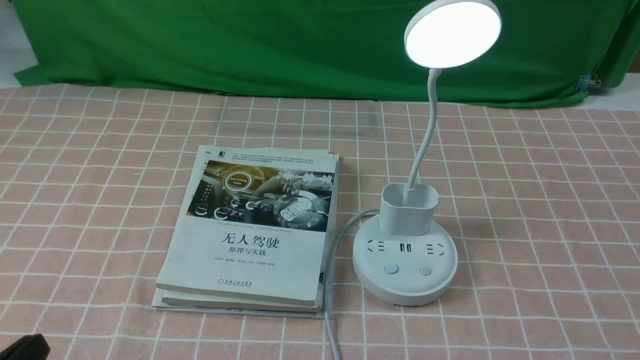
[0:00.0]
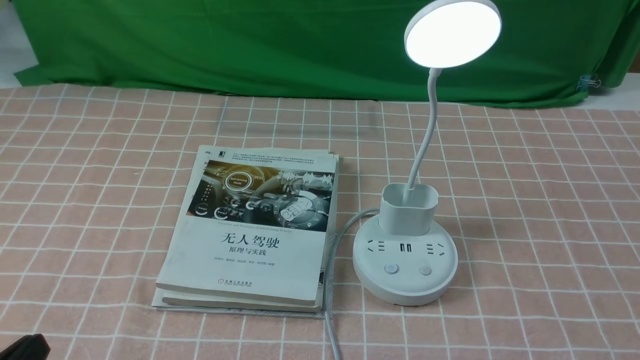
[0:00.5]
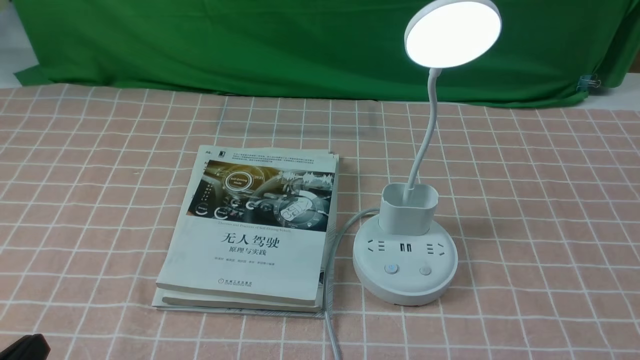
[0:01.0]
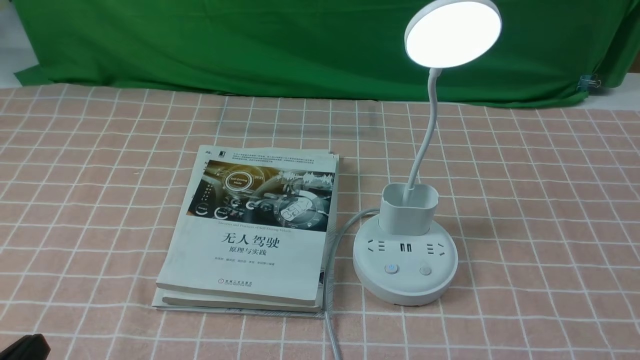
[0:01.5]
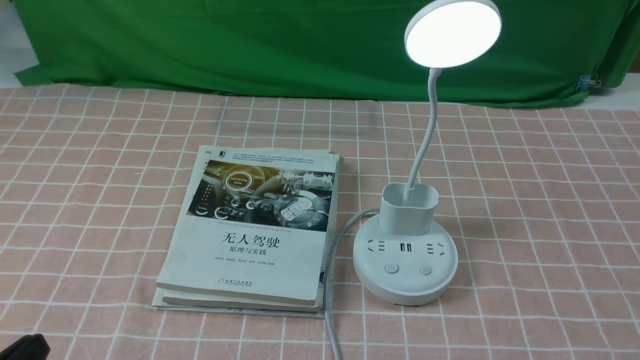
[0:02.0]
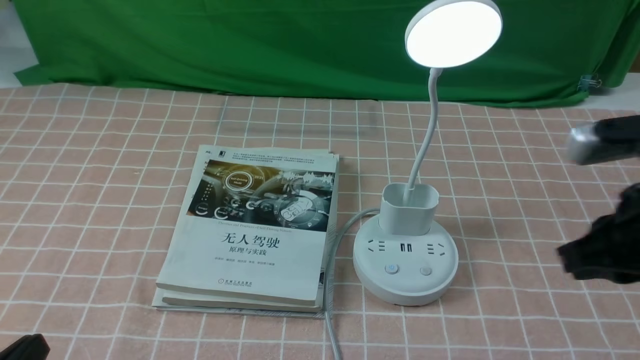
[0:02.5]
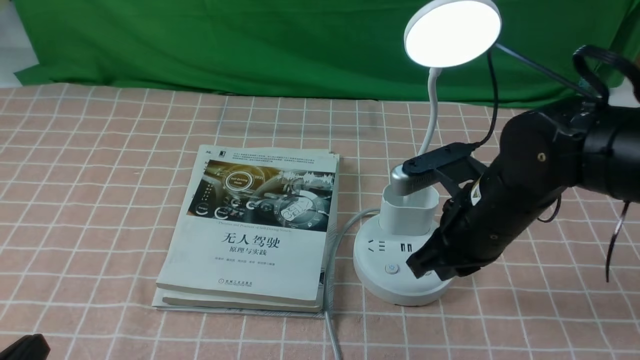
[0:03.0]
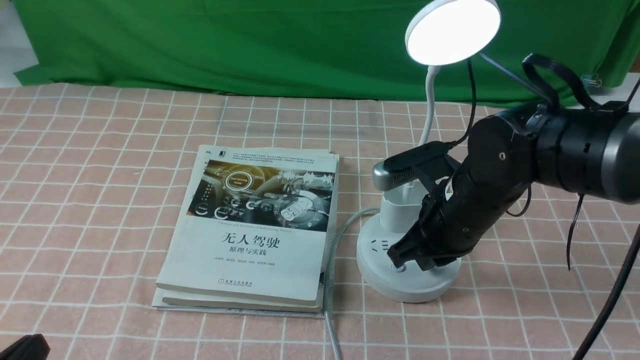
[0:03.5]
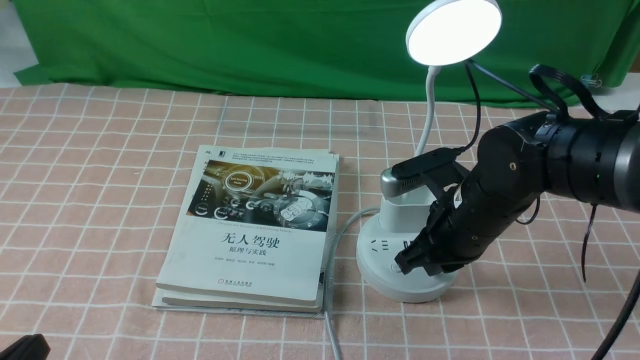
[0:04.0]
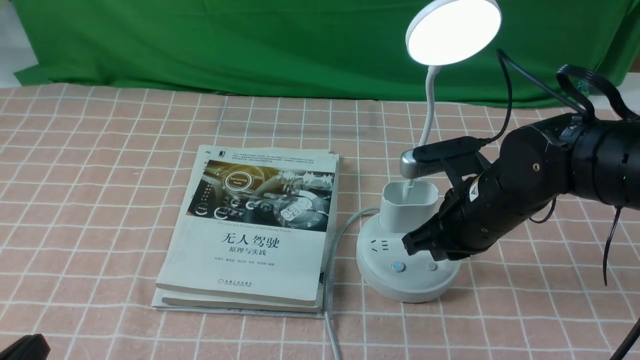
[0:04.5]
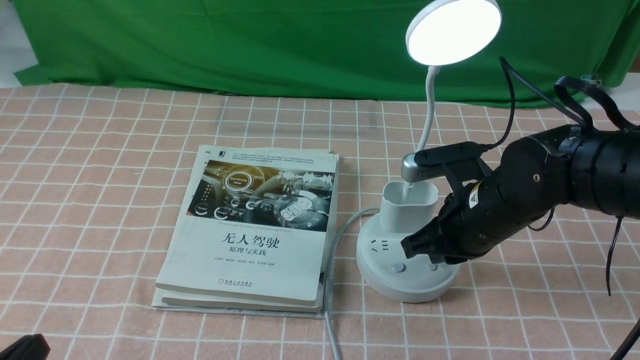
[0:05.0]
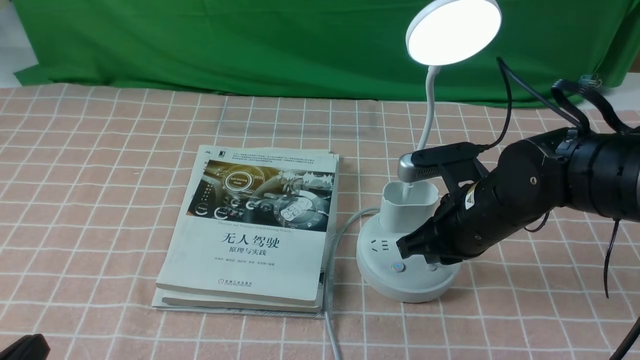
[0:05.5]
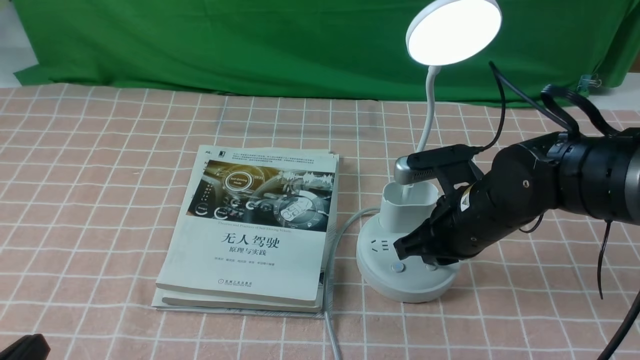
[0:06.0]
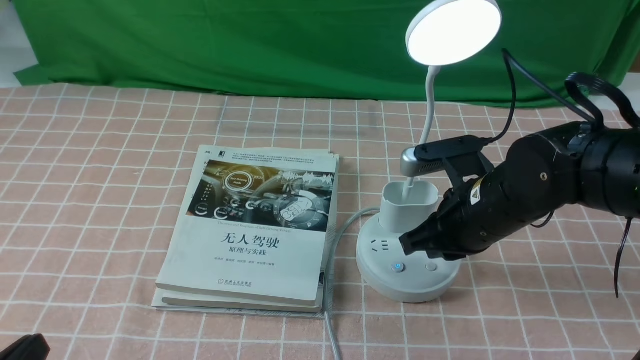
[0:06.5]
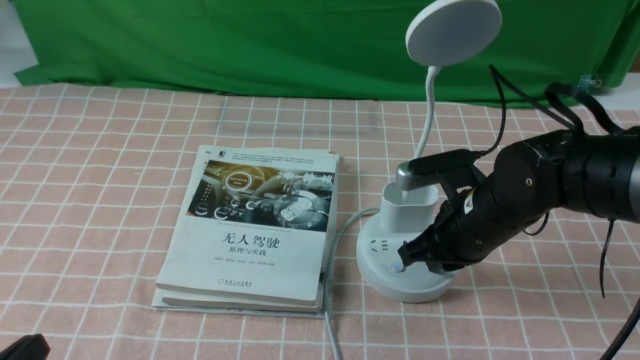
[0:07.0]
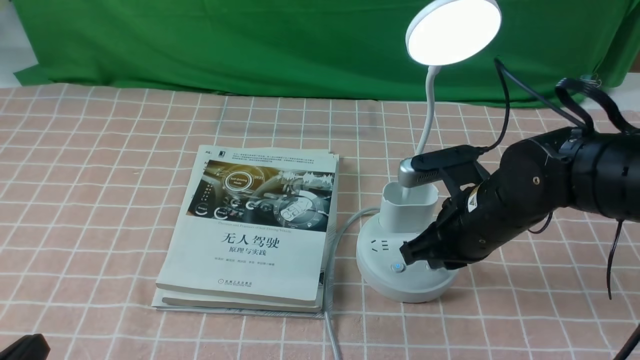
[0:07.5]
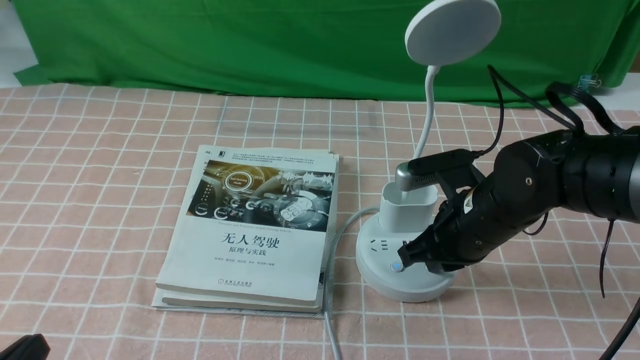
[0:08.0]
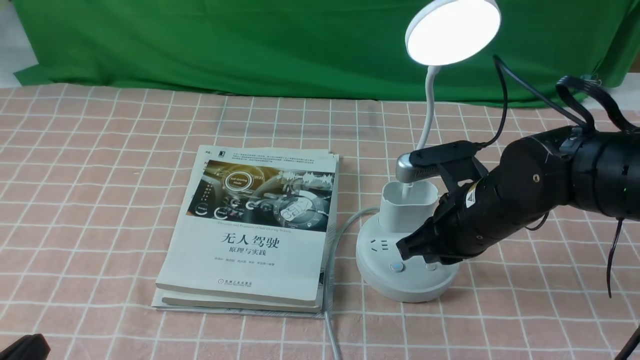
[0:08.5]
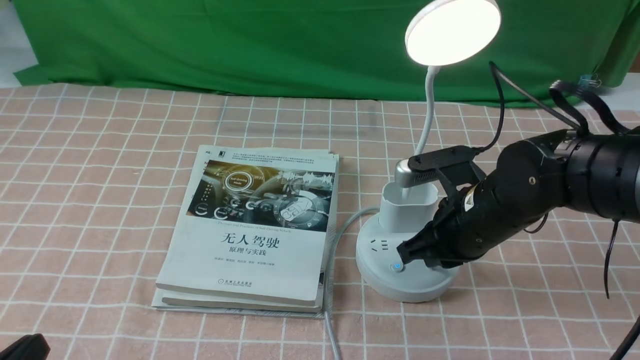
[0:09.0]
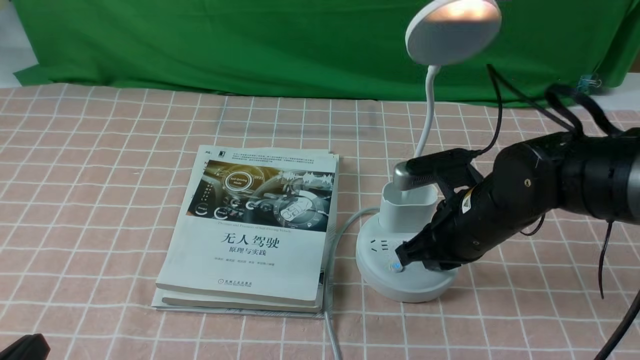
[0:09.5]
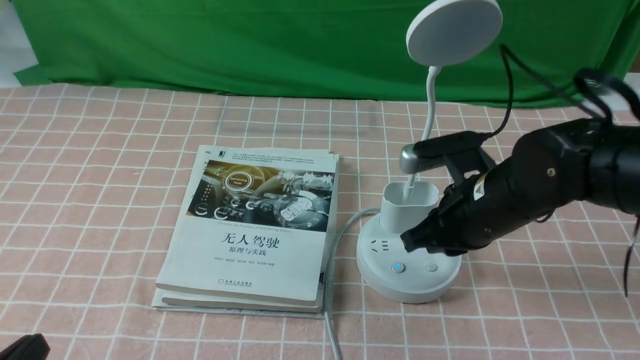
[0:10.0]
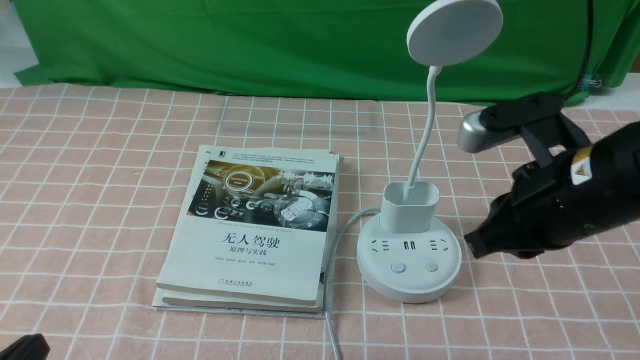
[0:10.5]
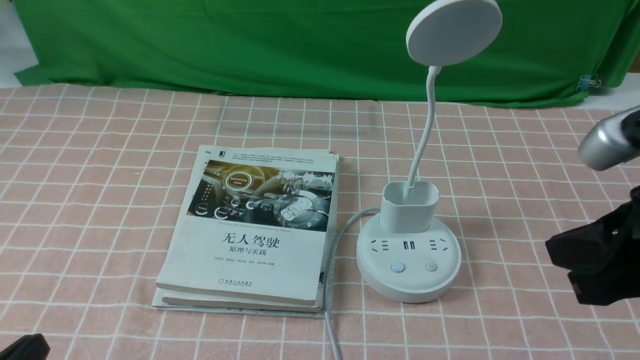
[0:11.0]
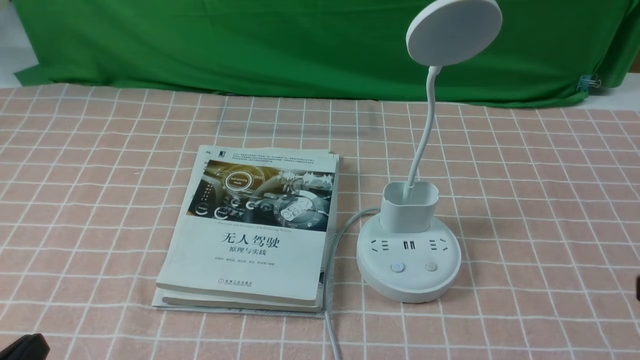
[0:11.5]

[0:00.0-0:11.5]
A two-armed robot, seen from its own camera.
Task of the whole recording: turn off the table lamp on the pink coffee tablecloth by hand.
Step, 0:00.0 to 0:09.5: use the right arm to press the button switch on the lamp holder.
0:02.0 to 0:04.0: The right gripper goes approximately 30 cm forward, to the left and downward.
0:04.0 to 0:06.0: There are only small adjustments of the grippers.
0:06.0 to 0:09.5: The two grippers keep their place.
0:09.5 to 0:11.5: The right gripper moves backward, to the right and upward, roughly 25 cm.
